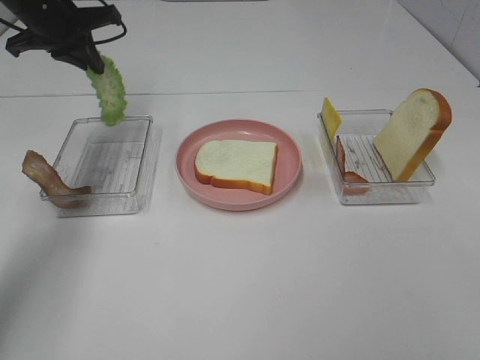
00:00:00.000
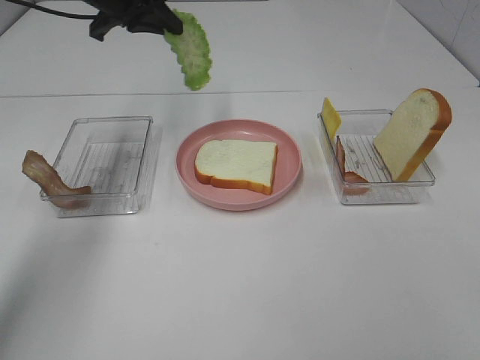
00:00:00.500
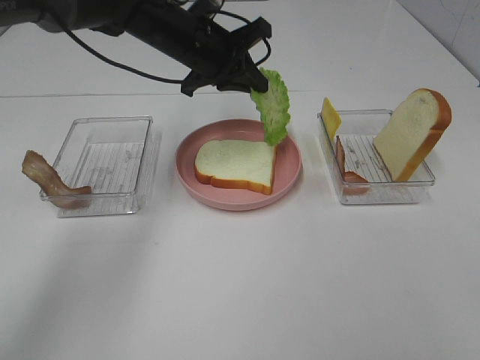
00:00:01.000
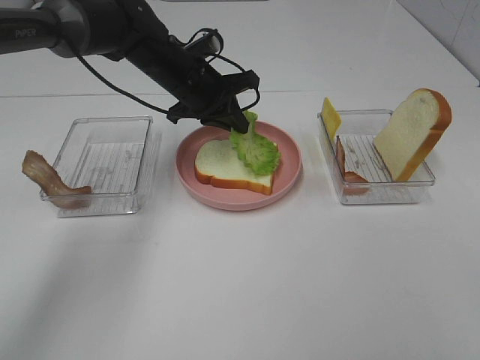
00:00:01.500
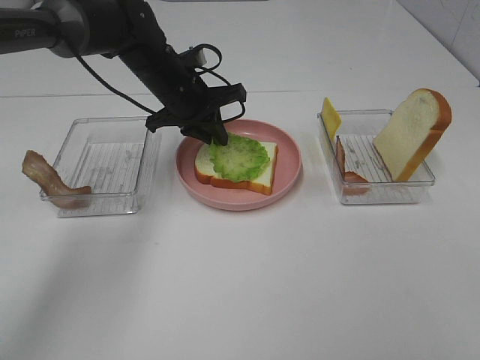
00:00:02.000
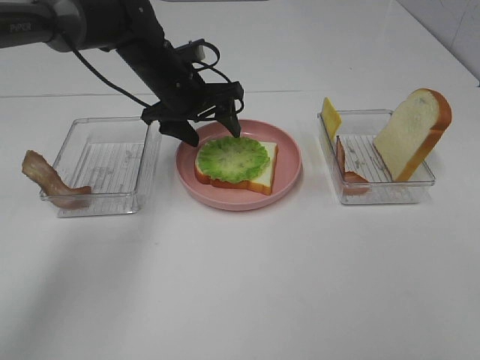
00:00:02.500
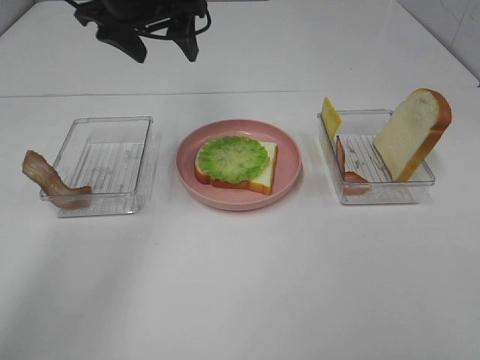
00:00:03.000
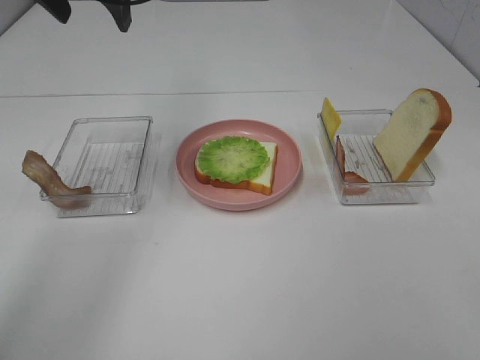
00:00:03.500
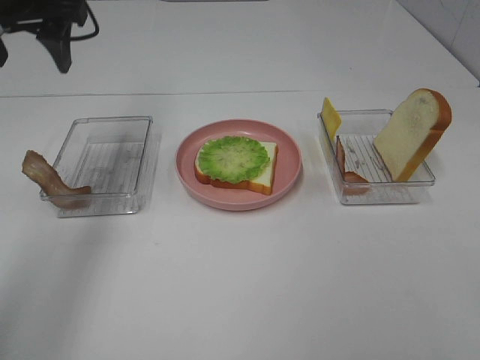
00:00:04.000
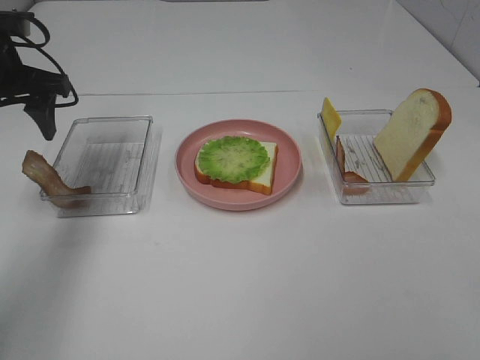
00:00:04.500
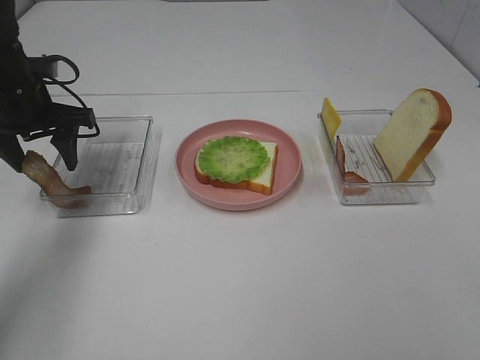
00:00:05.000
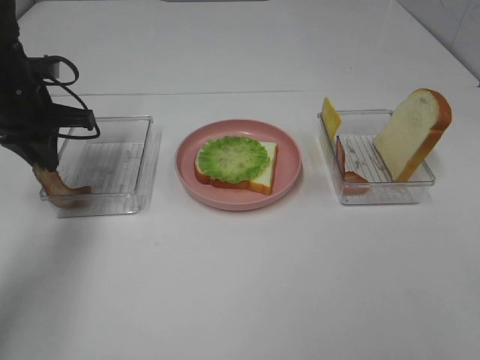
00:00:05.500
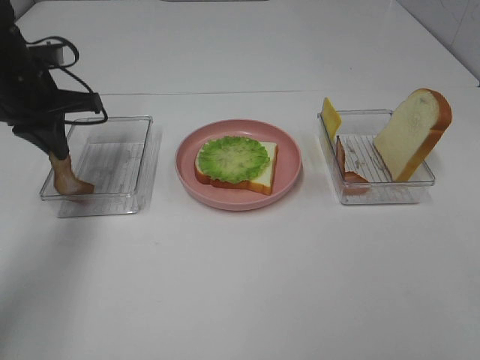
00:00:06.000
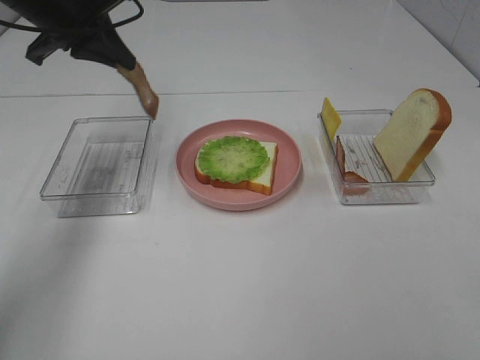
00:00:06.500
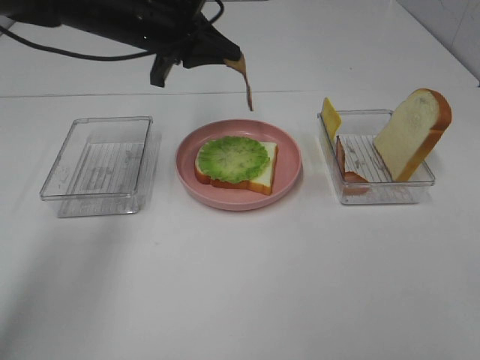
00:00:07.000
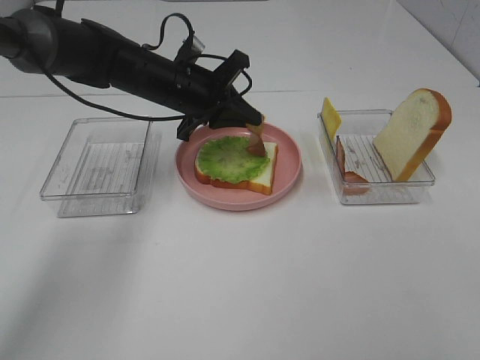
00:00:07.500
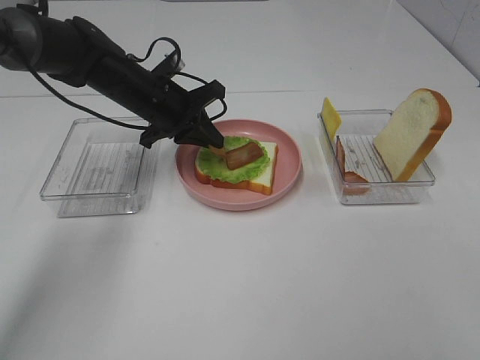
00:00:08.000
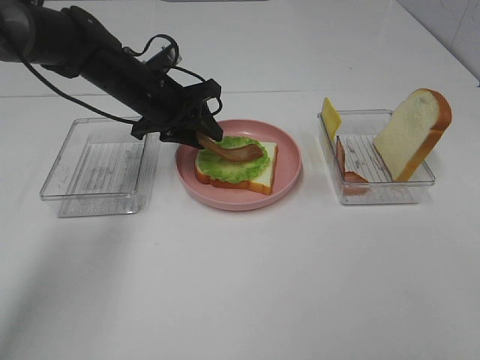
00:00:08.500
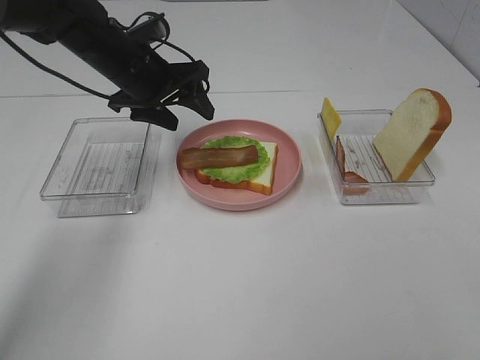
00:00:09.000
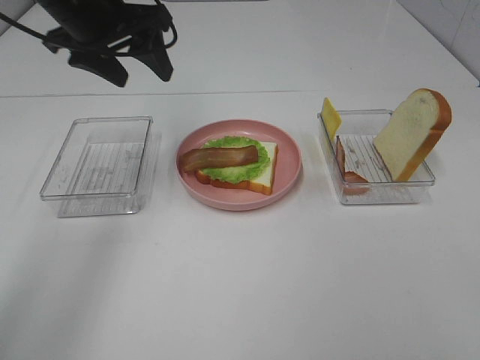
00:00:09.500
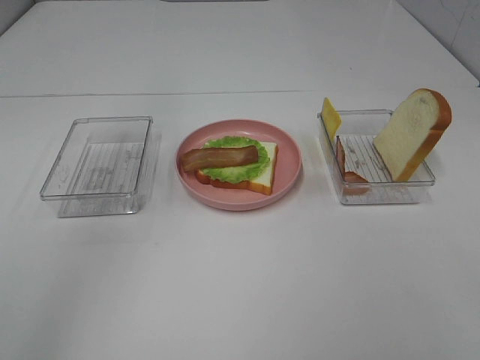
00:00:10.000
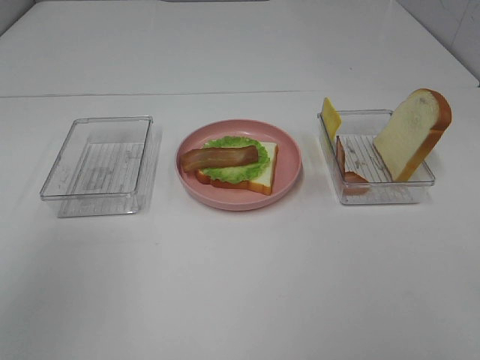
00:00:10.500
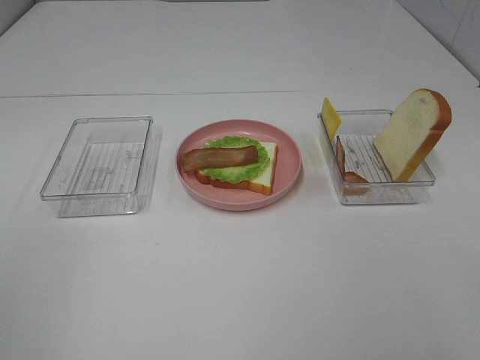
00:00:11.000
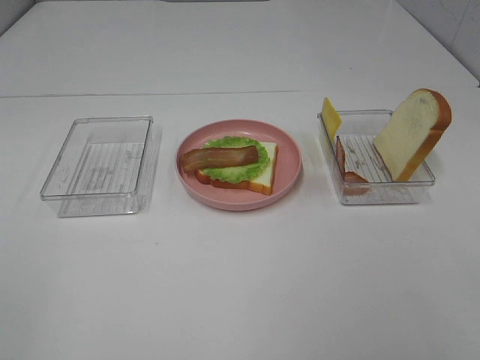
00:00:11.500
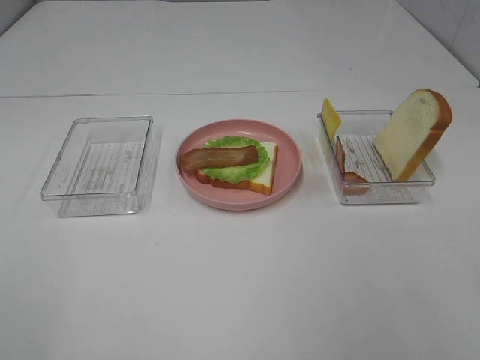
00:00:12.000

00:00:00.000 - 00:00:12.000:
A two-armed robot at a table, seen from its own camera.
Task of the whole recording: Make sandwiches.
Step, 00:00:00.000 - 00:00:02.500: Left hand:place the lettuce slice on the bread slice.
Step, 00:00:03.000 - 00:00:05.500: Left hand:grab the bacon.
Step, 00:00:06.000 - 00:00:09.000: Left hand:place bacon on lettuce slice.
00:00:00.000 - 00:00:02.000: The left gripper travels to the right and downward by about 20 cm.
00:00:02.000 - 00:00:04.000: The left gripper goes some 25 cm upward, to the left and backward, and opens.
00:00:04.000 - 00:00:06.000: The left gripper shifts roughly 10 cm downward, and closes.
00:00:06.000 - 00:00:08.000: The left gripper travels to the right and downward by roughly 15 cm.
00:00:08.000 - 00:00:10.000: The left gripper travels upward and backward by approximately 35 cm, and opens.
00:00:10.000 - 00:00:12.000: The left gripper travels backward and downward by roughly 35 cm.

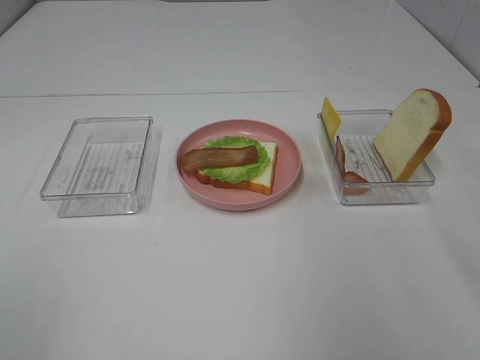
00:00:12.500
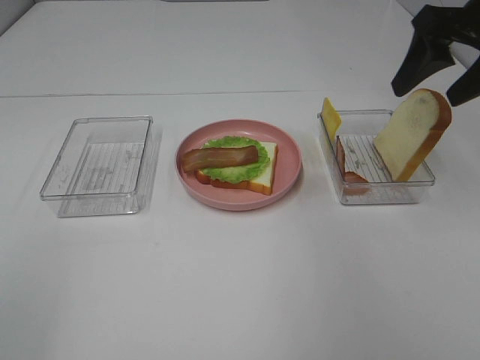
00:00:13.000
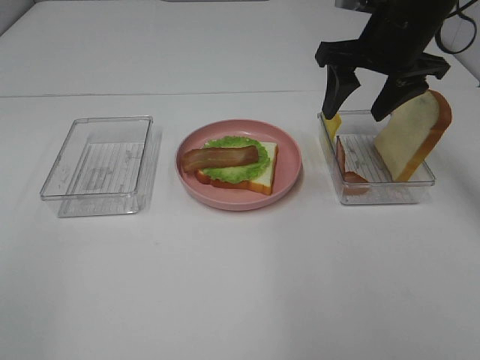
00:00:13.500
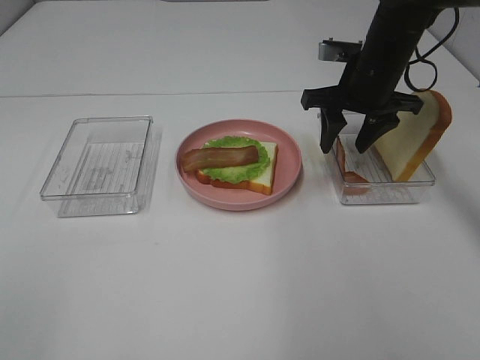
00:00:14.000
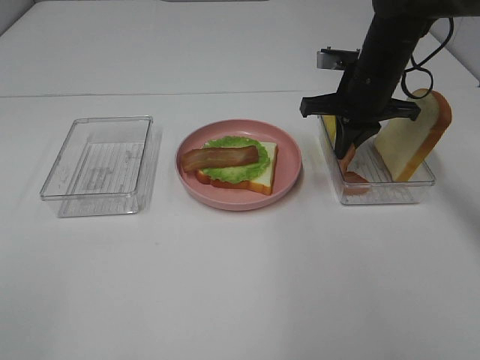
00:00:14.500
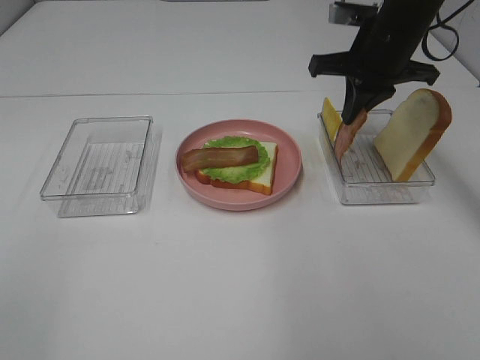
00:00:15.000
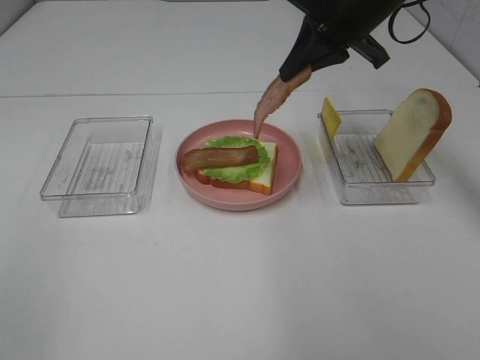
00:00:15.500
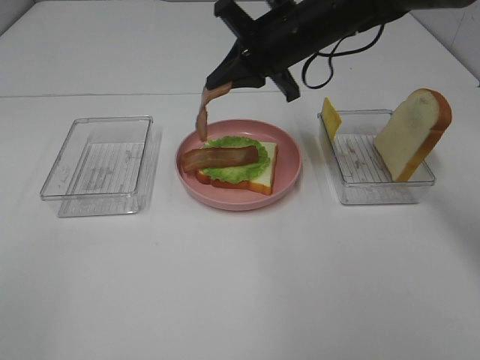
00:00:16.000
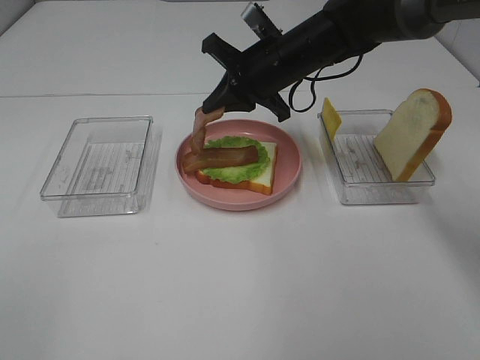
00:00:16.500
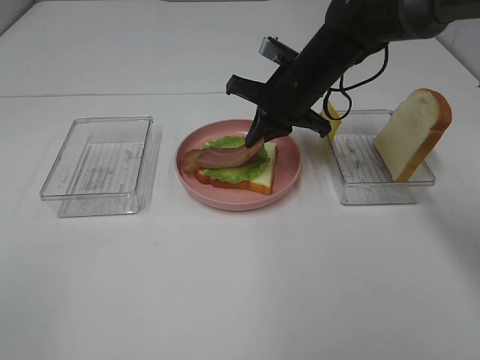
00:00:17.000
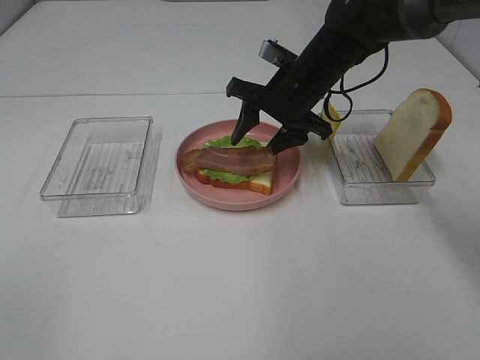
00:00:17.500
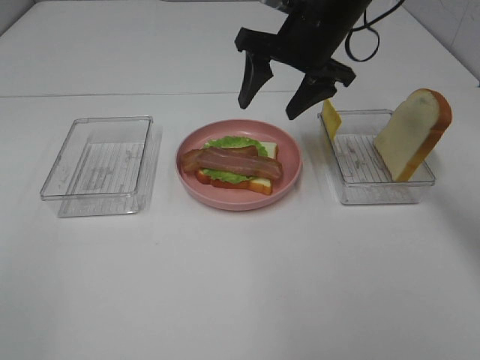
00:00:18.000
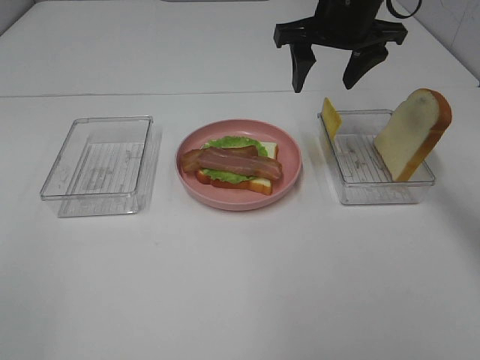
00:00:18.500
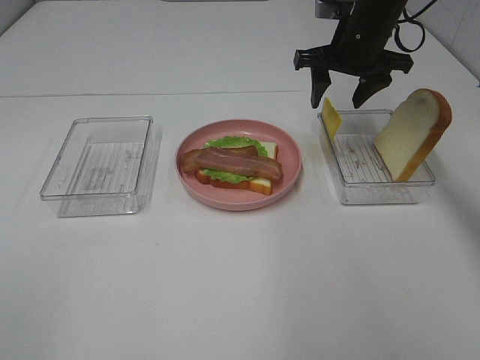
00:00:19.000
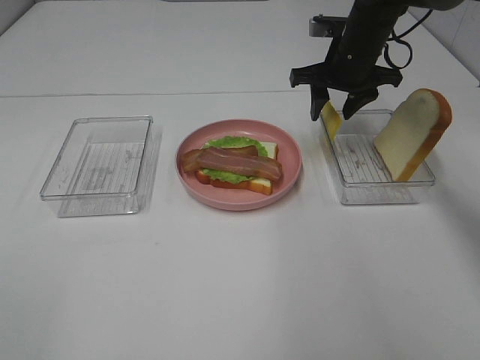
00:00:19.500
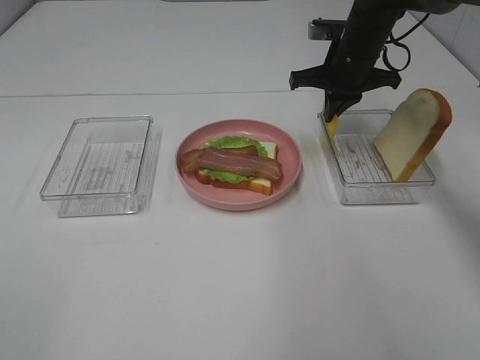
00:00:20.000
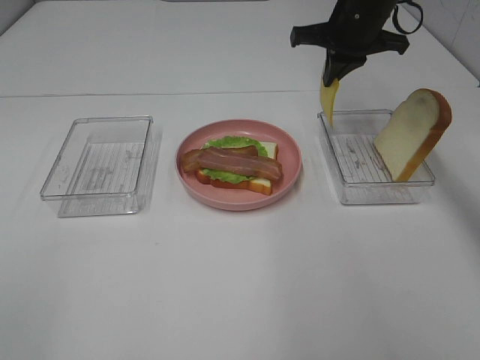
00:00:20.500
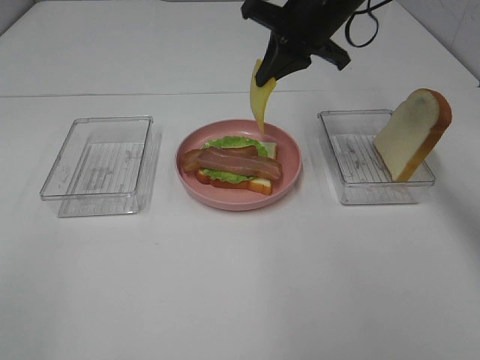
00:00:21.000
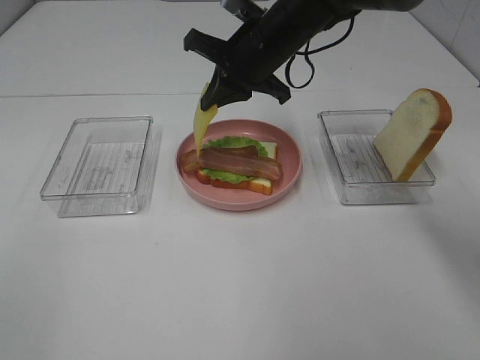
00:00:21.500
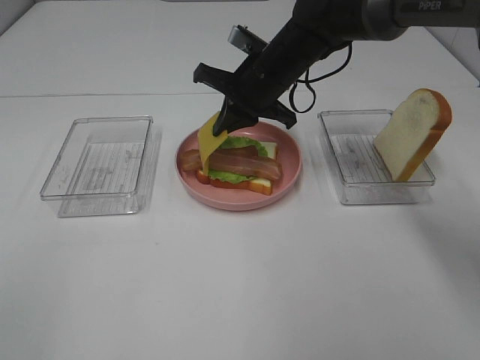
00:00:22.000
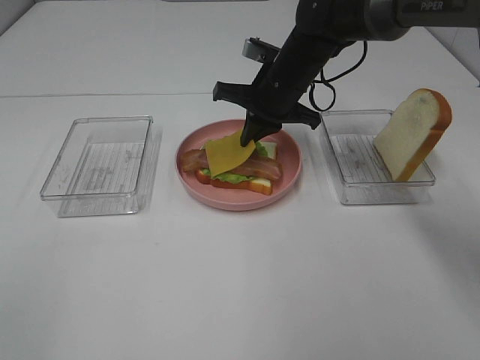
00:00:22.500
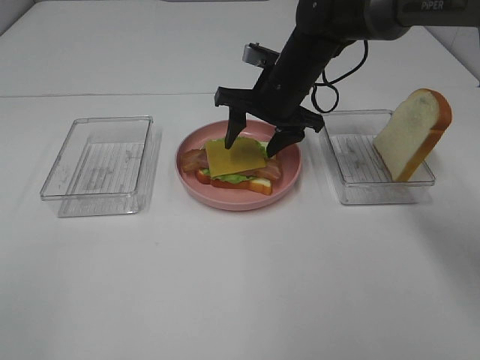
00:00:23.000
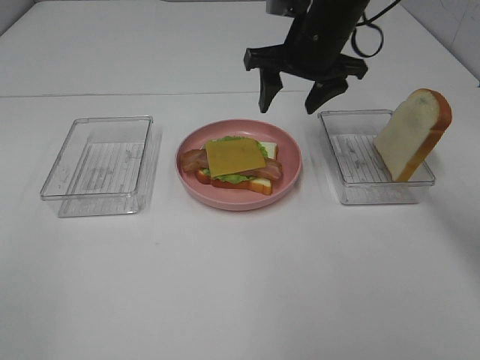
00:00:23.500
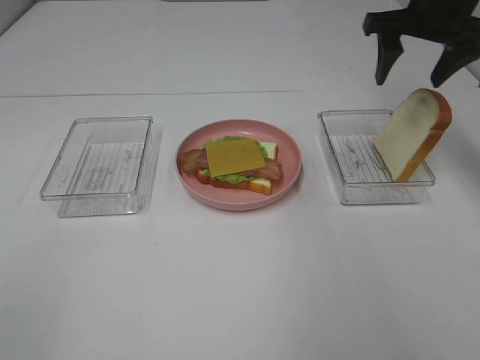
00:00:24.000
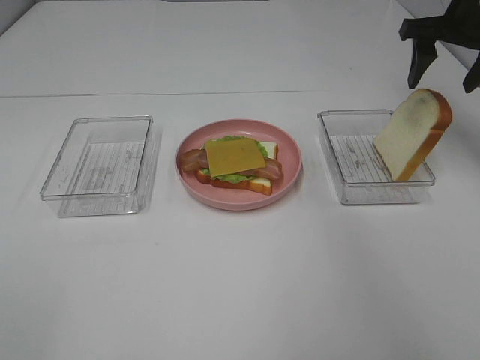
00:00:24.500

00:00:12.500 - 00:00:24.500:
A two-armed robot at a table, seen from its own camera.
Task of the whole recording: Make sandwiches.
Step, 00:00:12.500 - 00:00:14.500: Right hand:grab the bacon.
Step, 00:00:15.000 - 00:00:18.000: Right hand:place bacon on bacon.
Step, 00:00:18.500 - 00:00:20.000: Right hand:grab the cheese slice.
Step, 00:00:20.500 - 00:00:23.000: Right hand:place the cheese slice on top of the bacon.
00:00:12.500 - 00:00:14.500: The right gripper moves forward, downward and to the left, approximately 30 cm, and closes its fingers.
00:00:14.500 - 00:00:16.500: The right gripper is displaced to the left by approximately 10 cm, and reaches approximately 10 cm upward, then returns.
00:00:16.500 - 00:00:18.500: The right gripper heads upward and to the right, covering roughly 10 cm, and opens up.
00:00:18.500 - 00:00:20.500: The right gripper travels downward and back again, some 10 cm each way, and closes up.
00:00:20.500 - 00:00:22.500: The right gripper goes about 15 cm to the left and downward.
00:00:22.500 - 00:00:24.500: The right gripper goes roughly 25 cm to the right and upward, and opens up.

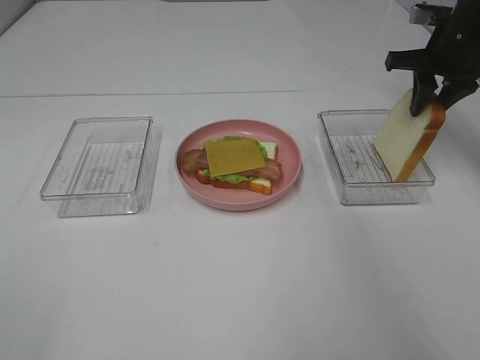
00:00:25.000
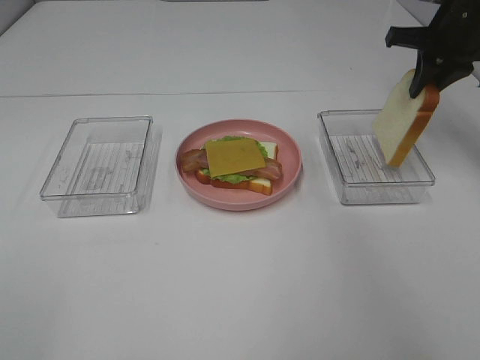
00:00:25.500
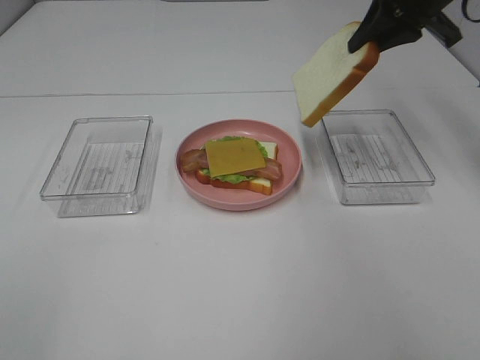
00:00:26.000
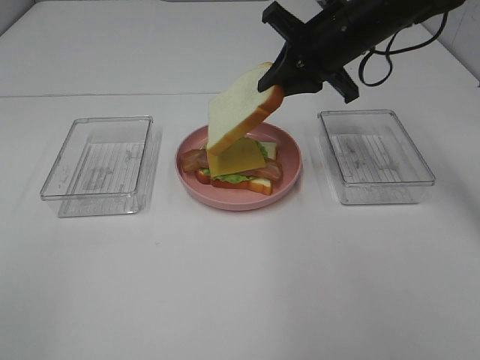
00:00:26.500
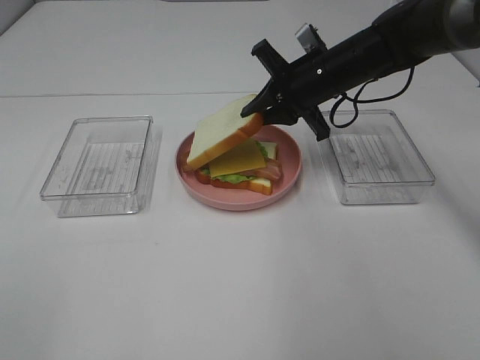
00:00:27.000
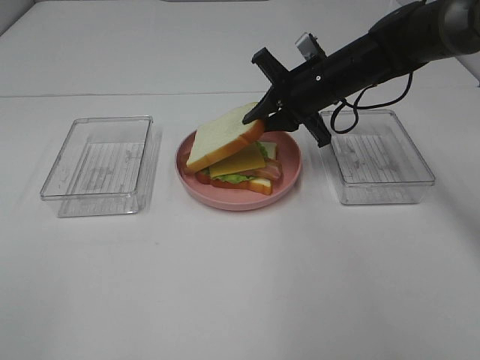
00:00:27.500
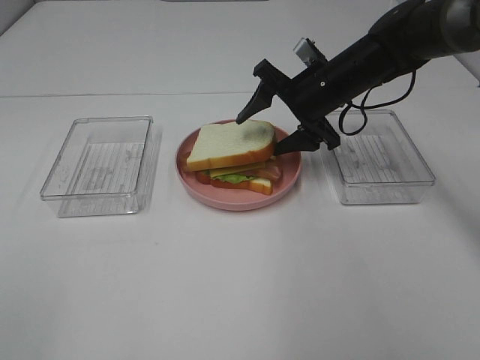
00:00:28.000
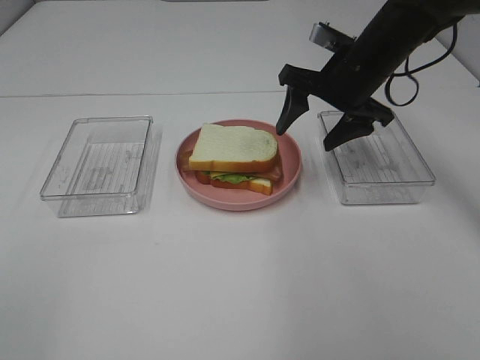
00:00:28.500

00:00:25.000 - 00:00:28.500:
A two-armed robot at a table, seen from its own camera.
Task of the whole recording: Make sandwiches.
Step, 00:00:25.500 - 00:00:28.500: Right hand:place the bread slice on the cheese slice.
00:00:25.000 - 00:00:27.000: The right gripper travels to the left by about 15 cm.
00:00:27.000 - 00:00:28.500: The right gripper shifts by some 5 cm, and opens up.
